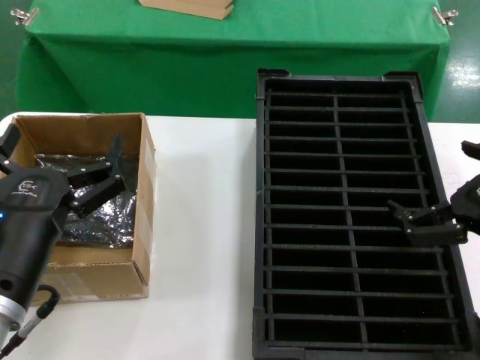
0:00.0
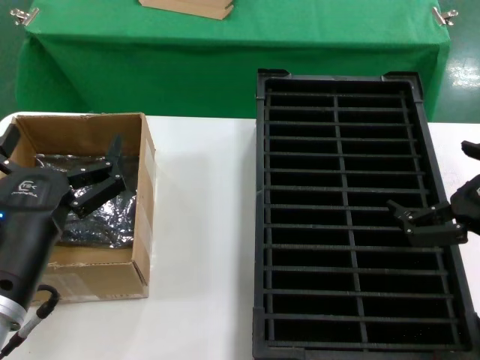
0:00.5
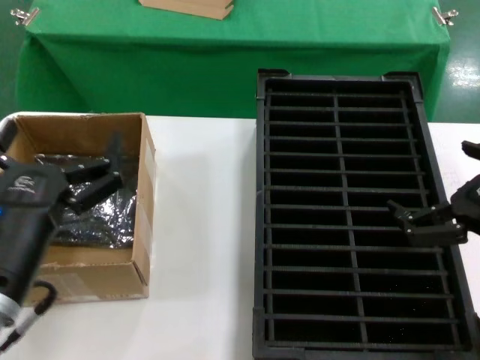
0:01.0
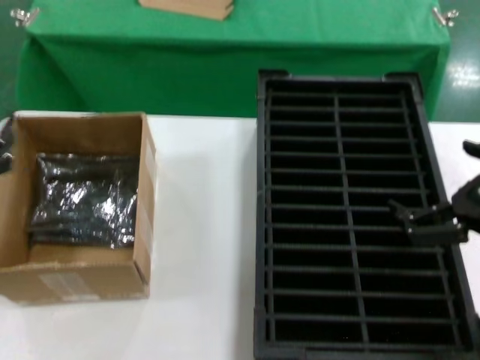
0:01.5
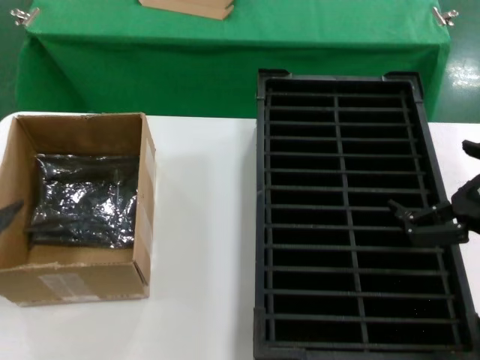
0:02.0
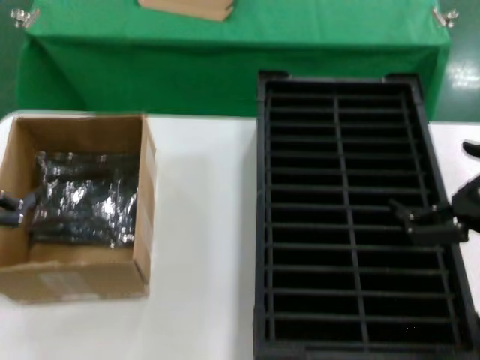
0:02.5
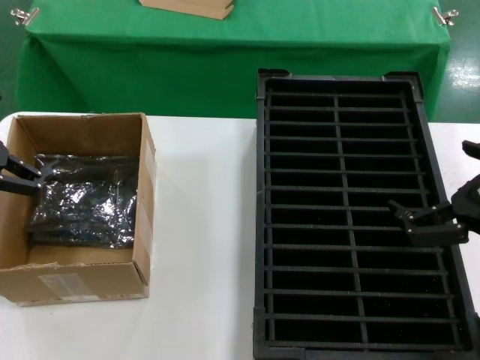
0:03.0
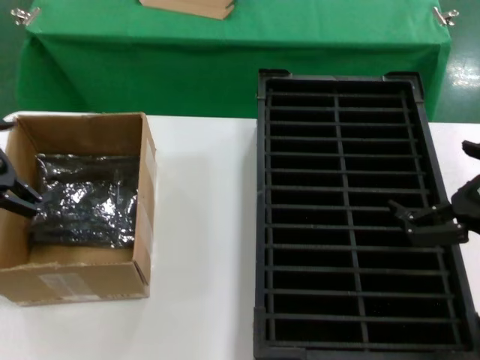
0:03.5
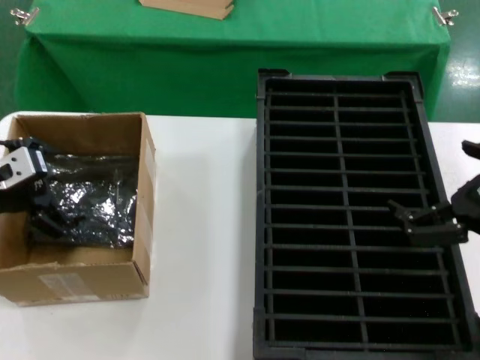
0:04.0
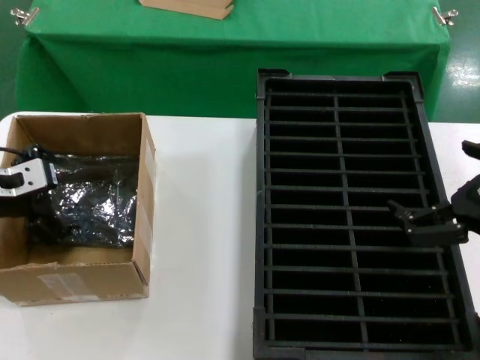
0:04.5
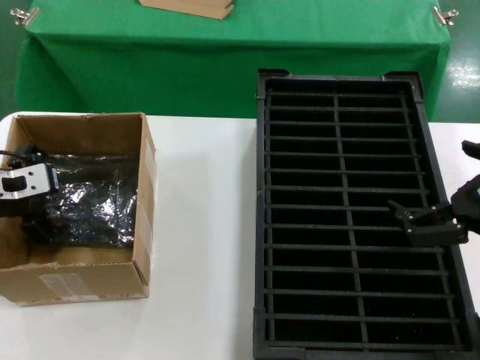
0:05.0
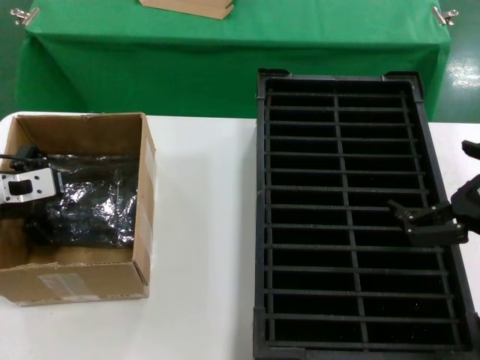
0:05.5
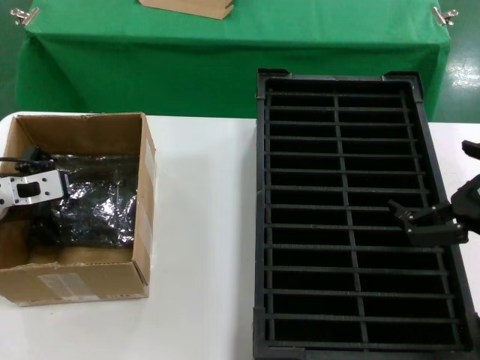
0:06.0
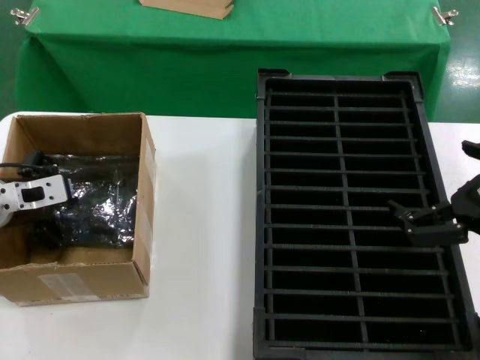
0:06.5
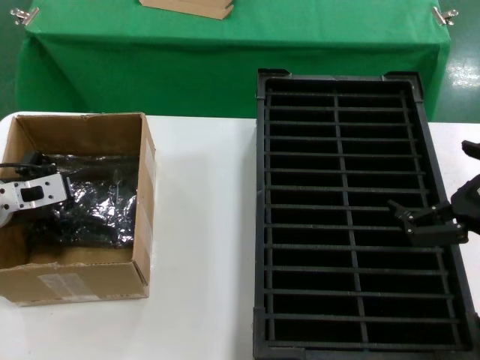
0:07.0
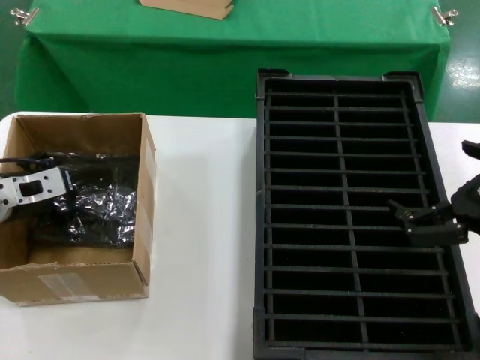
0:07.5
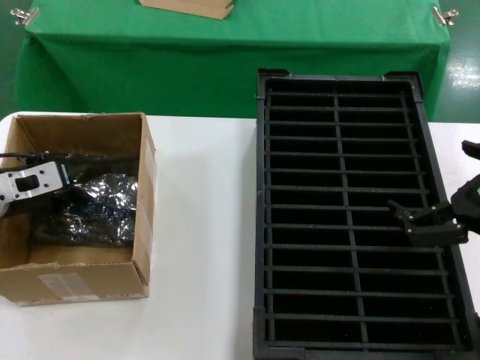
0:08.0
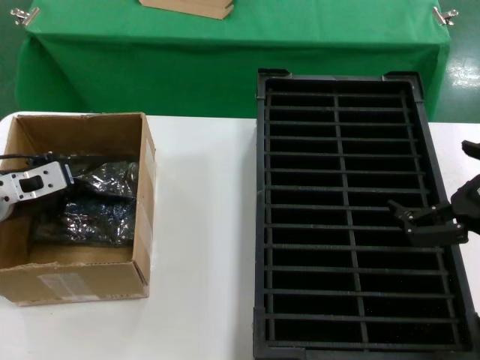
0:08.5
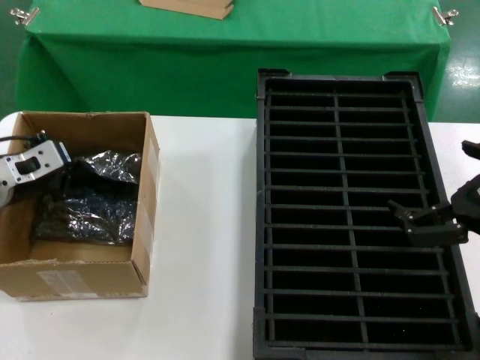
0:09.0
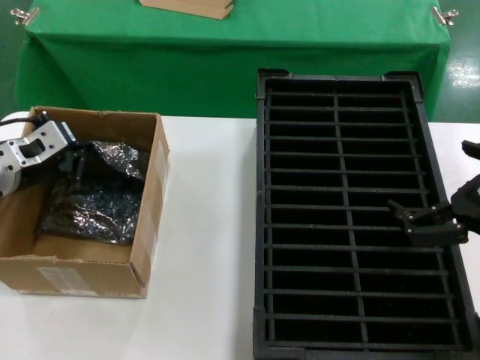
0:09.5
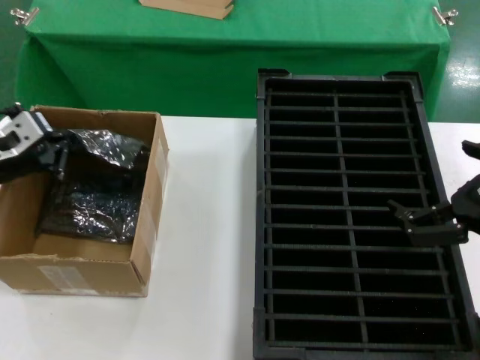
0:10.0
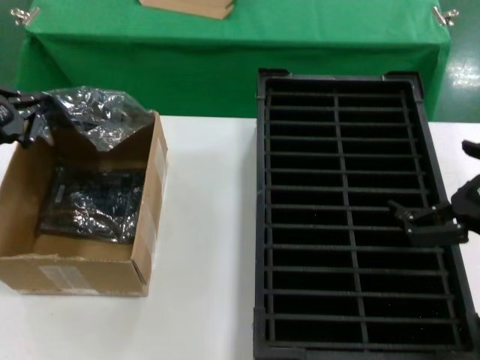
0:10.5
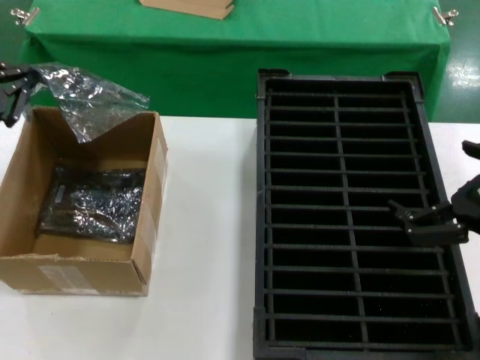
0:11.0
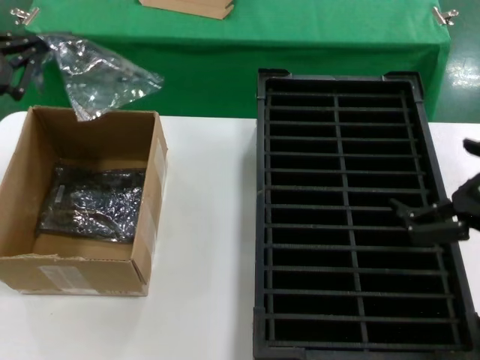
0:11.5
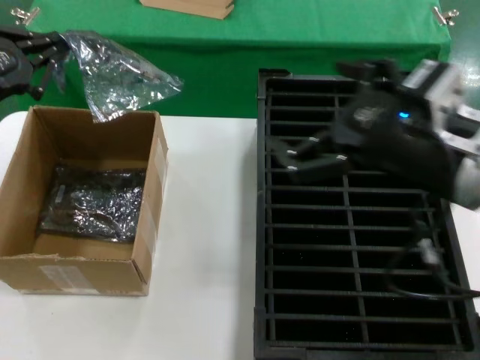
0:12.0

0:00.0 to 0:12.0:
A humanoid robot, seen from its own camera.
Task of the whole recording: take out graphics card from box remove packaging put into black container.
Step, 0:00.0 to 0:08.0: Grasp the bag.
Step, 0:09.0 to 0:10.5: Lift the bag.
0:00.0 to 0:02.0: The left hand heads to the left and upward, covering approximately 20 cm.
0:02.0 to 0:04.0: The left hand shifts about 20 cm forward.
0:04.0 to 0:10.0: The hands move only a little.
0:10.0 to 0:12.0: The right hand heads to the left and forward, covering roughly 10 cm. Meanwhile the left hand travels upward by about 10 cm.

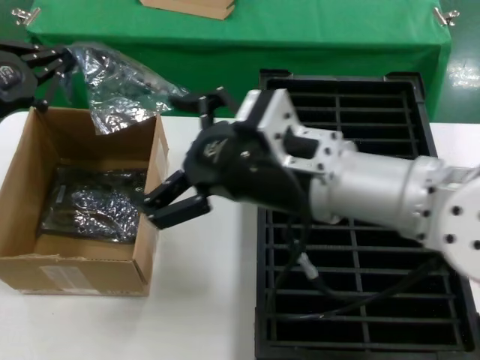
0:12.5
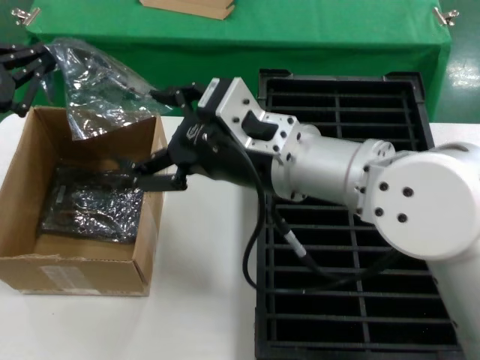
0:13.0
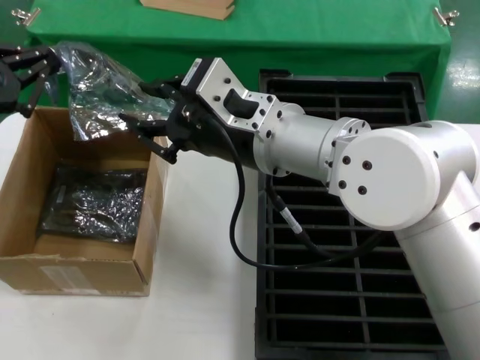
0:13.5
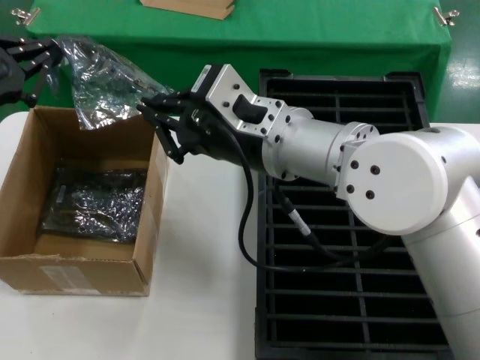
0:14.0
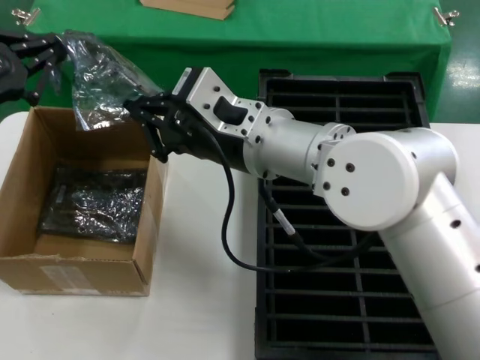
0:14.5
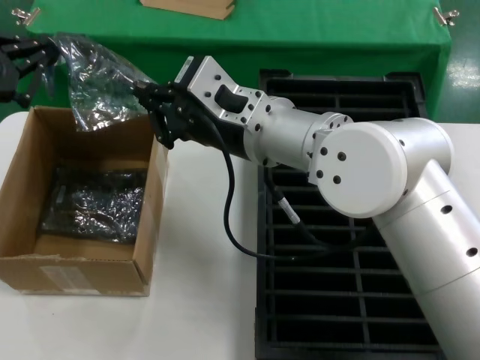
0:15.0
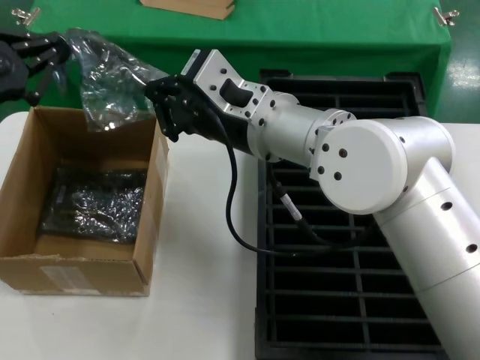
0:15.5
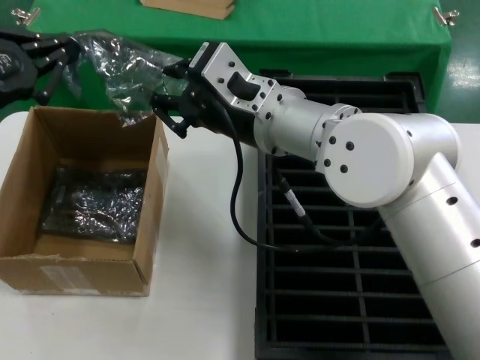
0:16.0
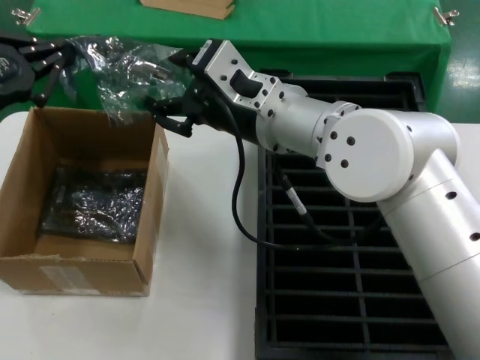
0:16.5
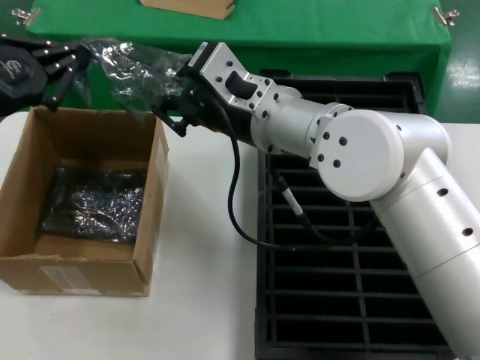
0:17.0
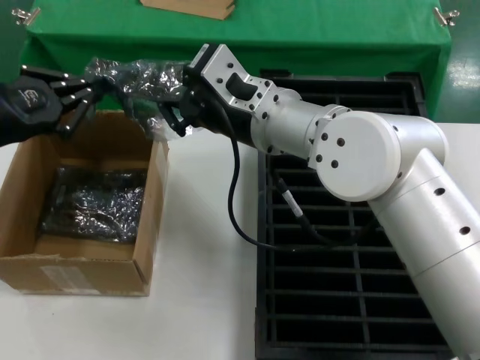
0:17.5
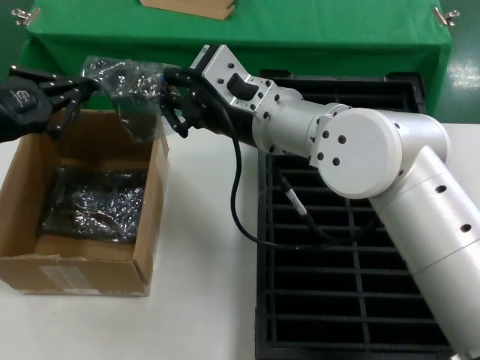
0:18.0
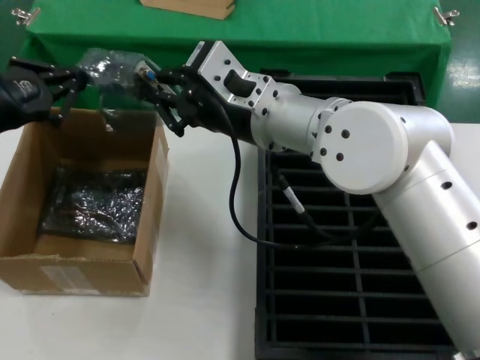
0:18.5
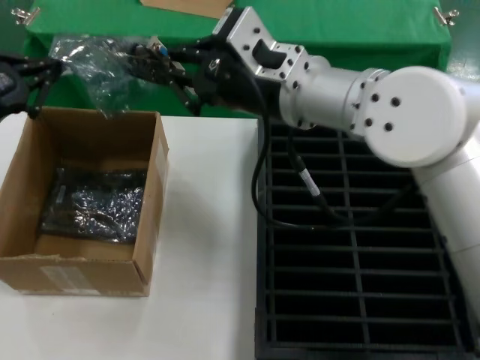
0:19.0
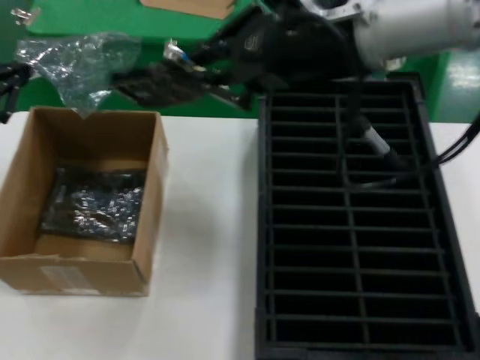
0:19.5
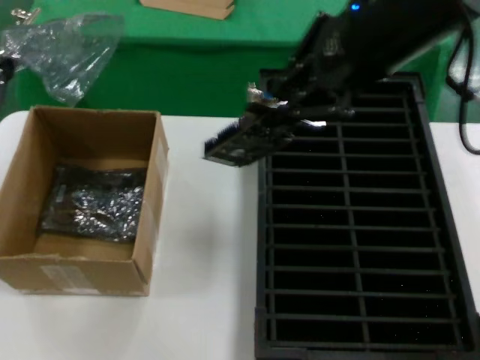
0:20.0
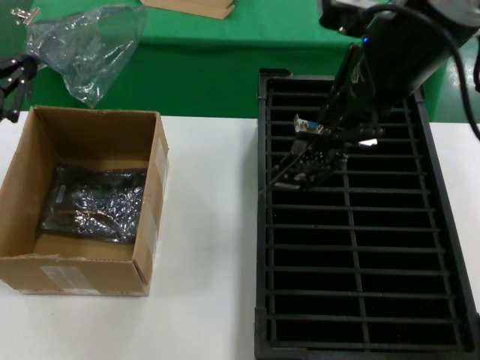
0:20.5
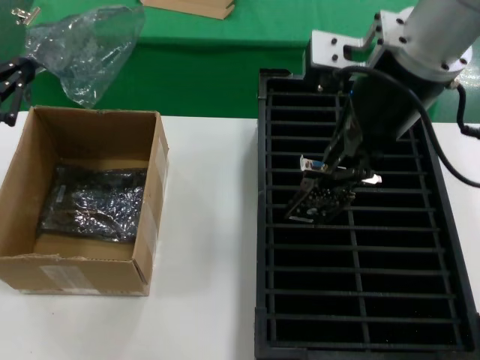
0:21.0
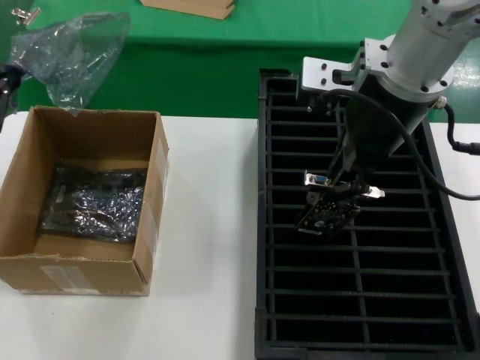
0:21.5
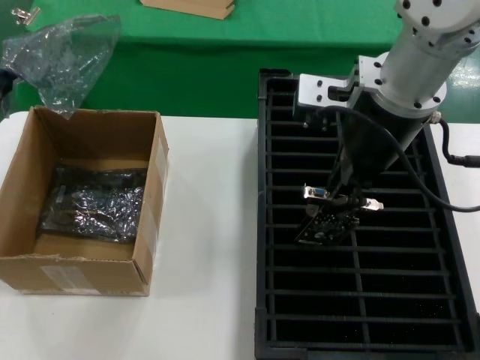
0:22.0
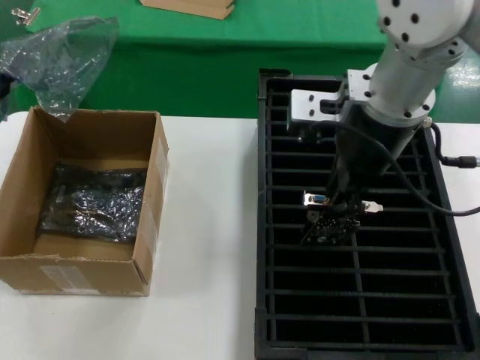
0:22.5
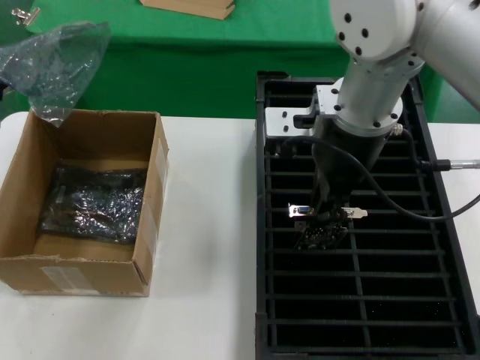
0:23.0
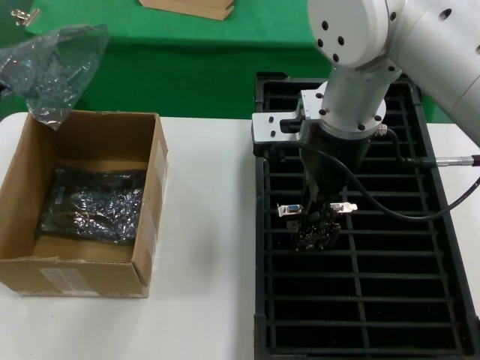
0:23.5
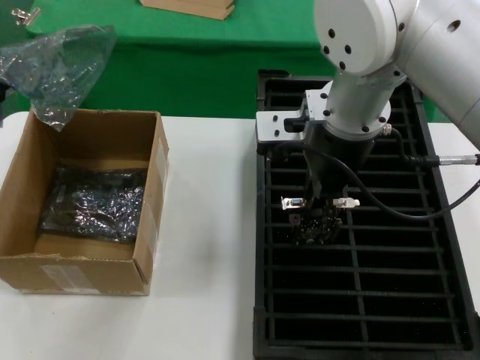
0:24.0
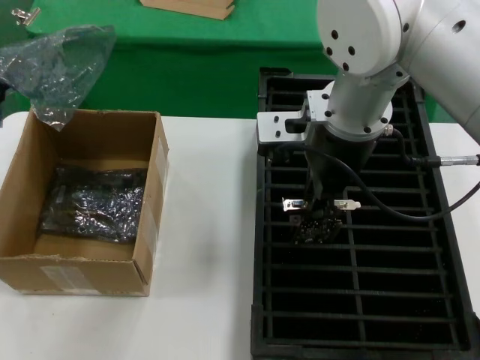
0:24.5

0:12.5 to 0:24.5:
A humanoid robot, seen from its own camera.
Task of the whole recording: take out graphics card from box remove packaging put into black container.
Step, 0:12.5 to 0:19.5: Take out the hard disk of the bag.
0:12.5 to 0:14.5: The right hand is displaced forward and to the left by approximately 10 cm.
0:16.5 to 0:18.5: There are only small adjustments of the hands.
0:18.5 to 0:20.5: The left hand shifts by about 5 cm. The right hand shifts about 25 cm upward and to the right.
0:20.5 to 0:22.5: The right hand heads downward, covering approximately 10 cm.
0:22.5 to 0:24.5: The hands stay close to where they were, moving slightly.

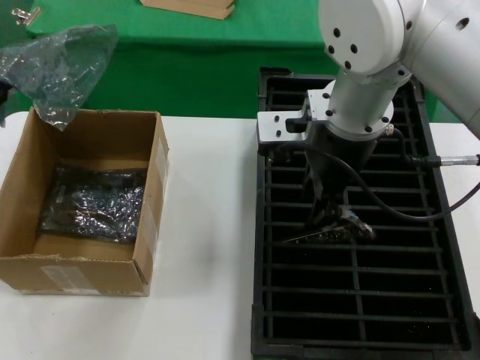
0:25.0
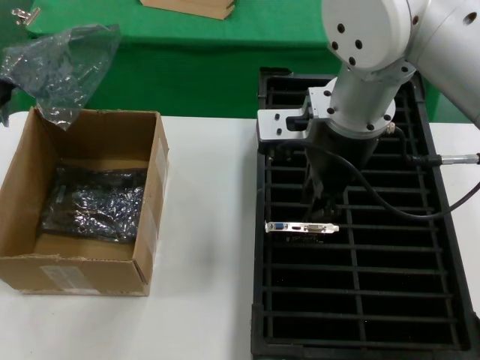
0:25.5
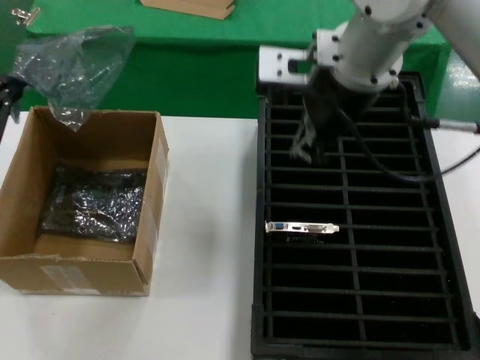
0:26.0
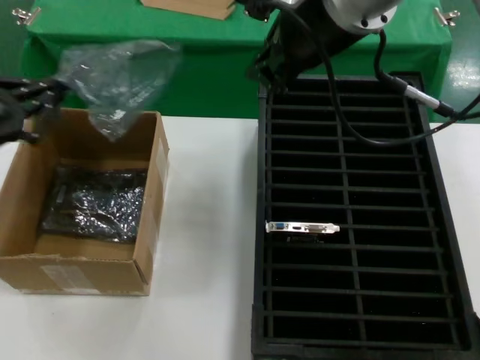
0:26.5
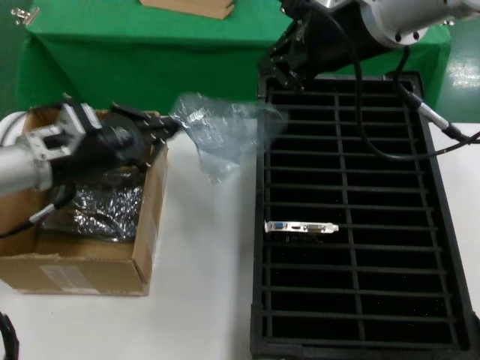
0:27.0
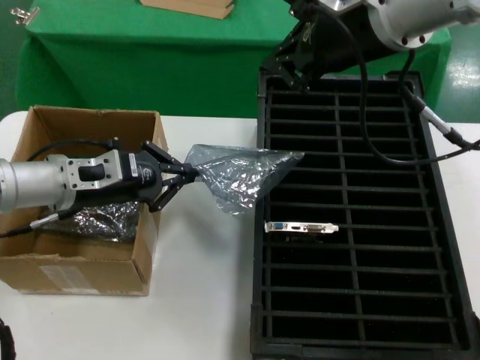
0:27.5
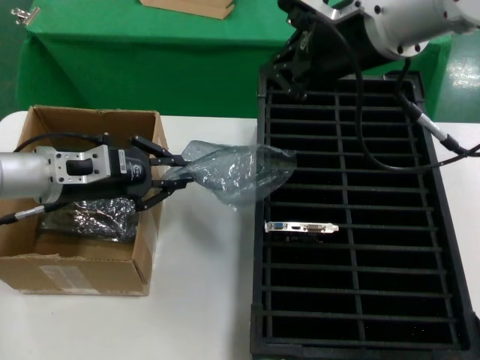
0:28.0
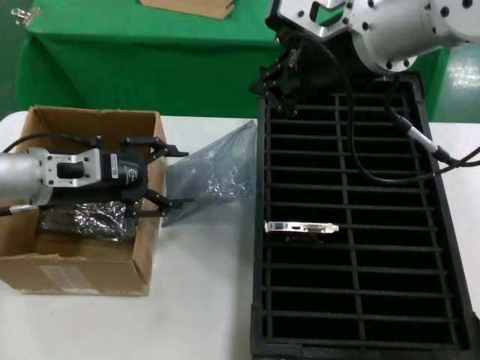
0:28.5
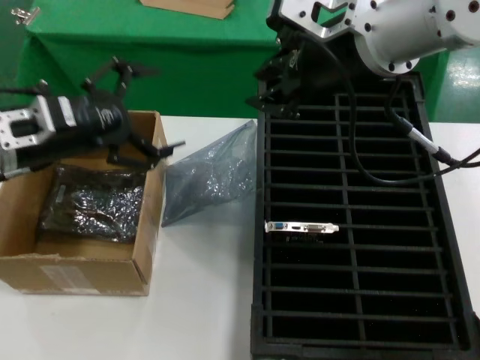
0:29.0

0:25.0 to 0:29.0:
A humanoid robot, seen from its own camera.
Task of the whole recording: take out graphics card from box remove packaging put into black container.
Step, 0:26.0 to 0:28.0: Place the down the bag.
0:25.0 to 0:27.0: The right hand moves upward, some 10 cm. Meanwhile the left hand goes approximately 20 cm to the right and forward.
0:27.0 to 0:29.0: The left hand changes place by roughly 5 cm.
